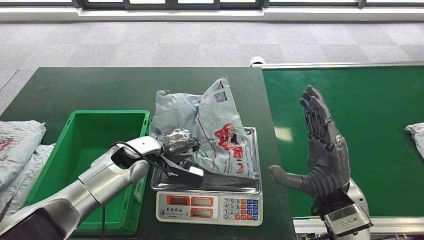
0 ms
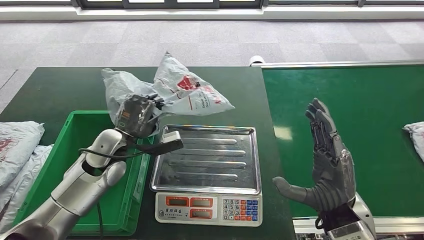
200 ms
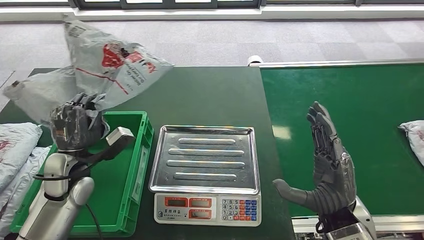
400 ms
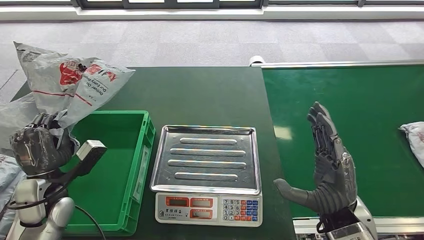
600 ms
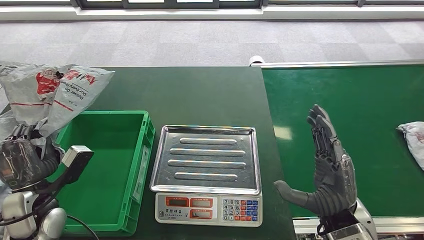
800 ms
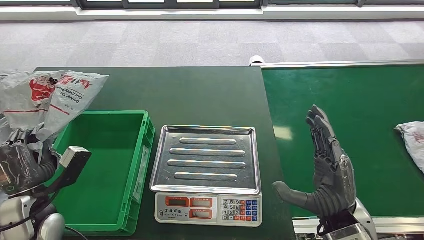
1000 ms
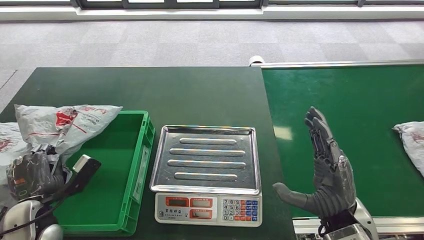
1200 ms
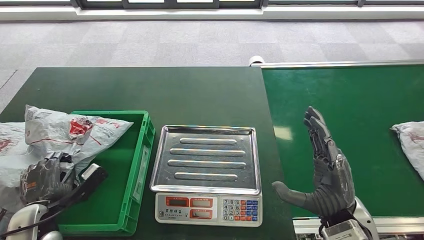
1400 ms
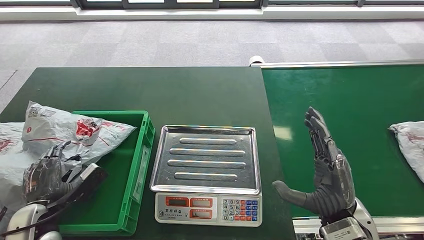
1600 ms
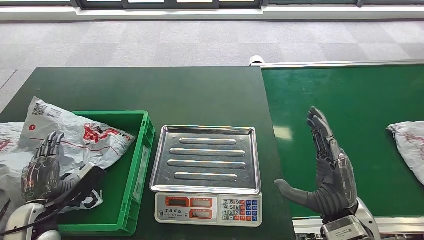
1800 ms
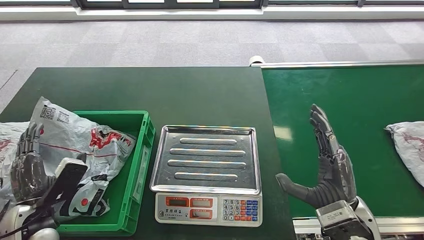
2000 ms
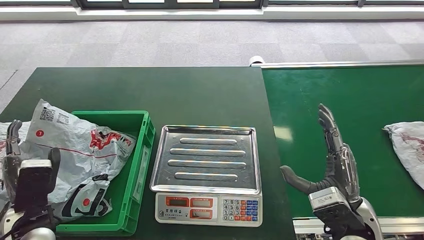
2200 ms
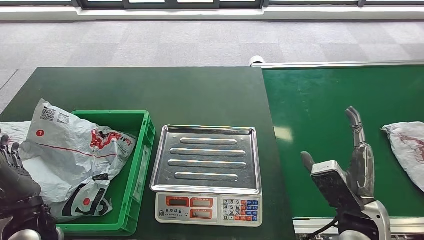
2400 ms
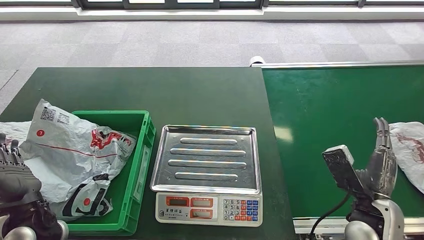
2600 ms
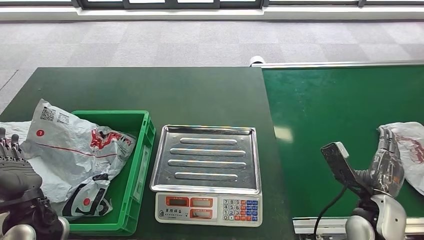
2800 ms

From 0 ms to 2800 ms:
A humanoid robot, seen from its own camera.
Step, from 1000 ms to 2800 ms: Put the parcel inside the courier box.
From 1400 ms to 2800 ms: The right hand moves to the right and downward, approximately 10 cm; the left hand is displaced upward by some 5 cm.

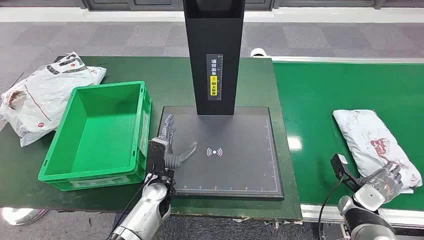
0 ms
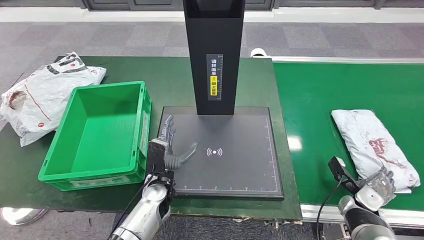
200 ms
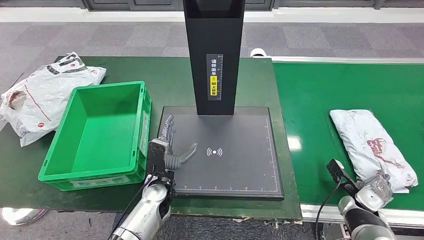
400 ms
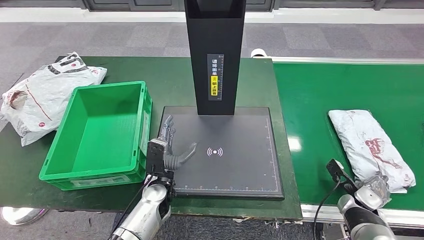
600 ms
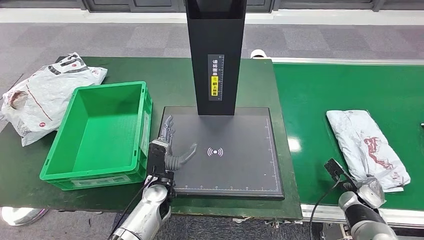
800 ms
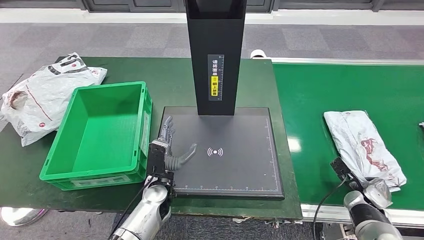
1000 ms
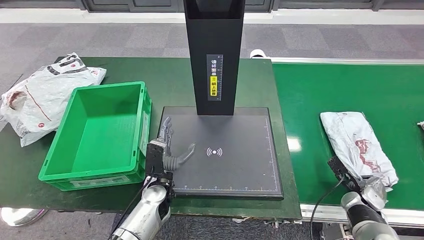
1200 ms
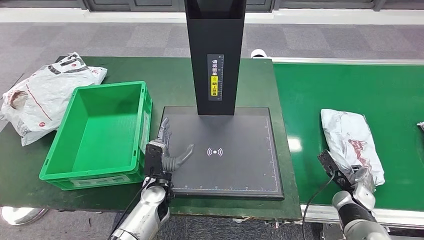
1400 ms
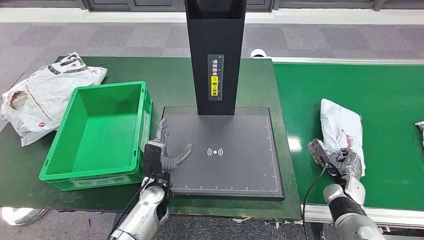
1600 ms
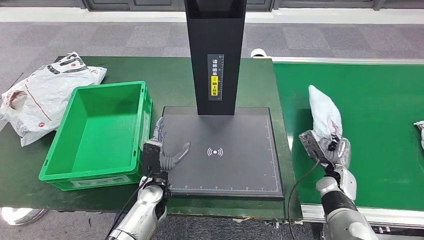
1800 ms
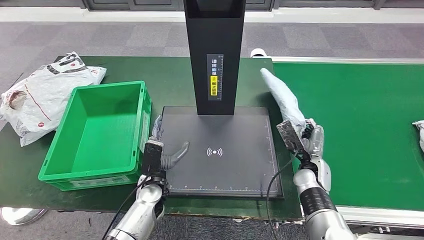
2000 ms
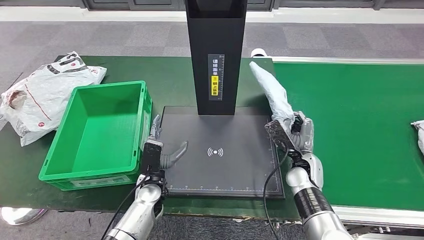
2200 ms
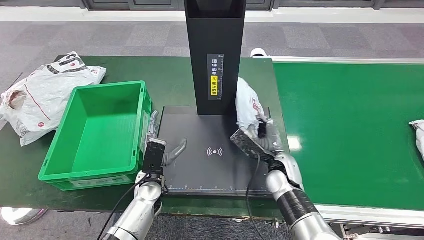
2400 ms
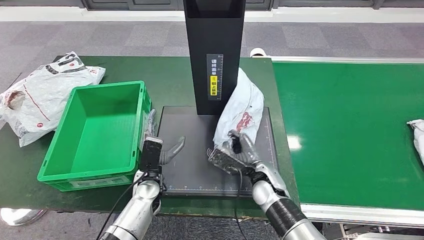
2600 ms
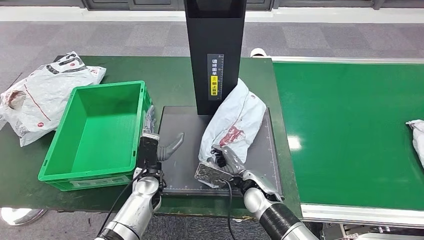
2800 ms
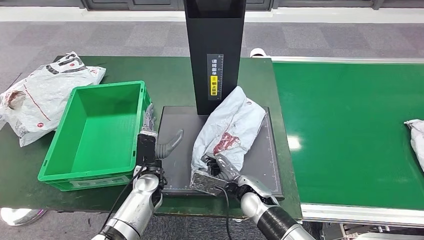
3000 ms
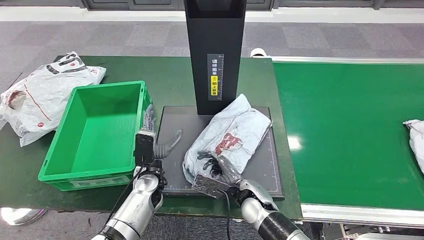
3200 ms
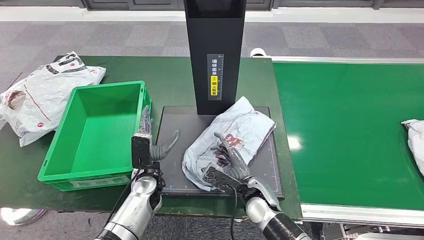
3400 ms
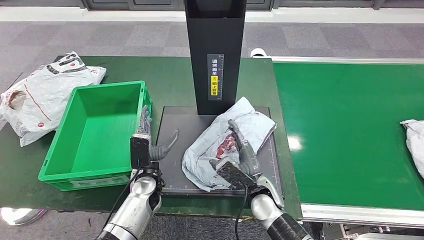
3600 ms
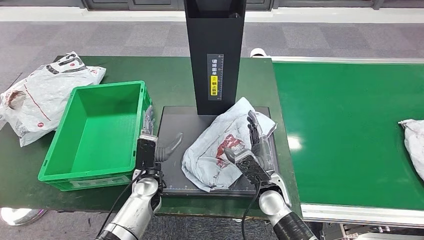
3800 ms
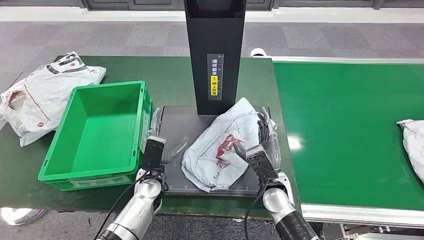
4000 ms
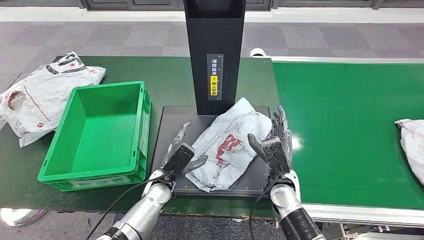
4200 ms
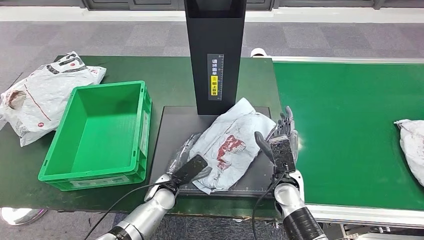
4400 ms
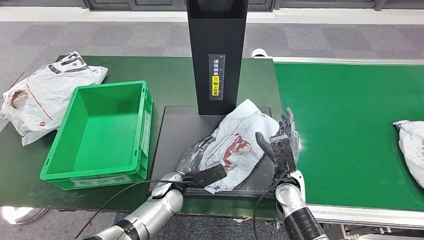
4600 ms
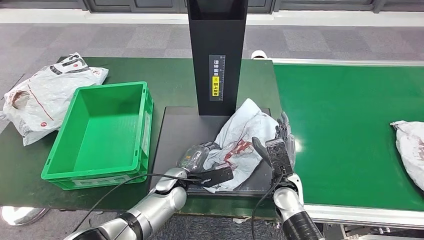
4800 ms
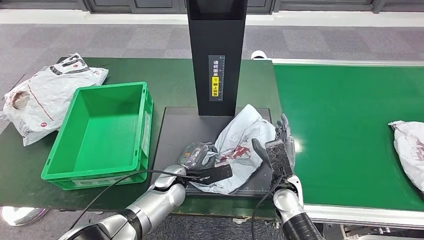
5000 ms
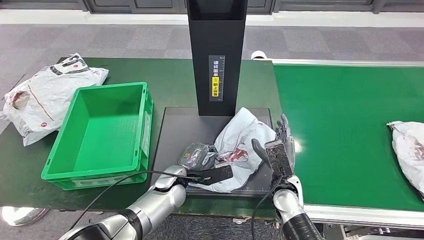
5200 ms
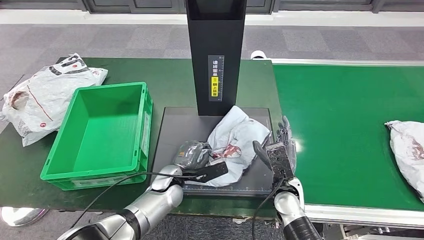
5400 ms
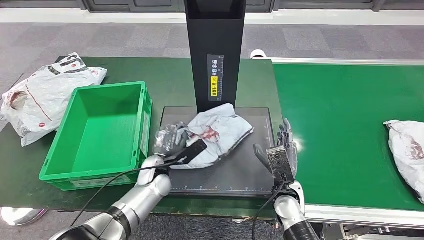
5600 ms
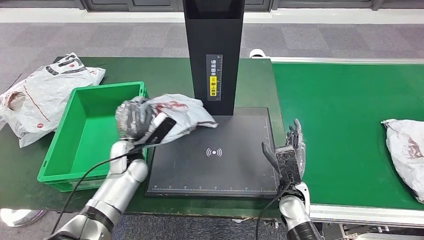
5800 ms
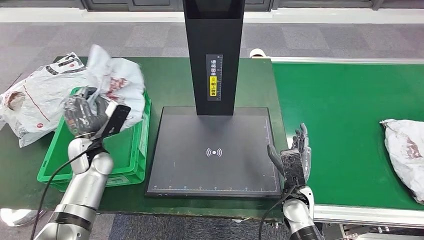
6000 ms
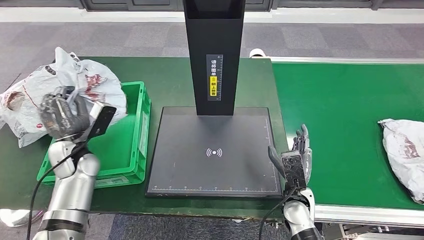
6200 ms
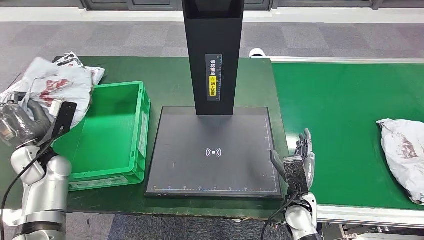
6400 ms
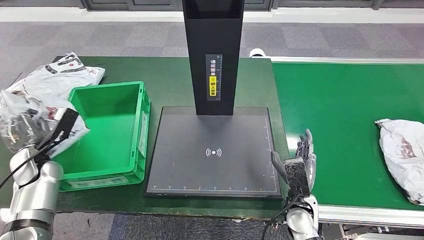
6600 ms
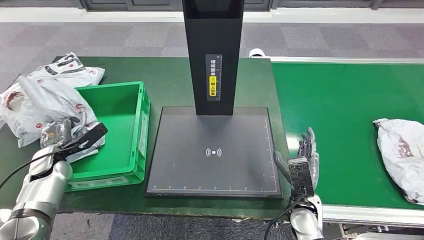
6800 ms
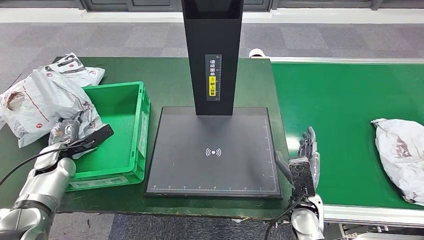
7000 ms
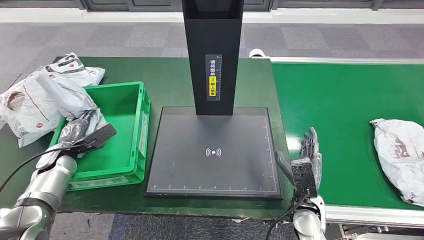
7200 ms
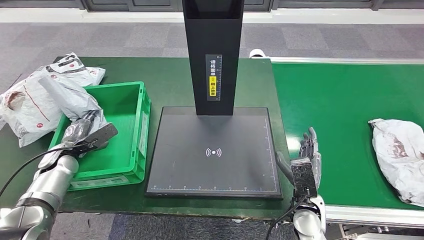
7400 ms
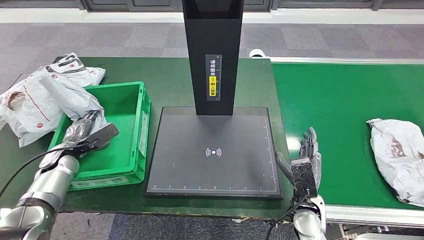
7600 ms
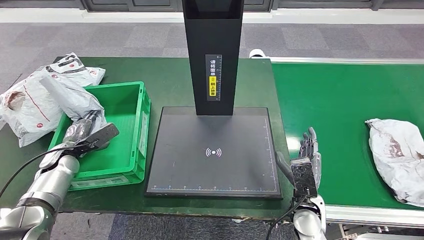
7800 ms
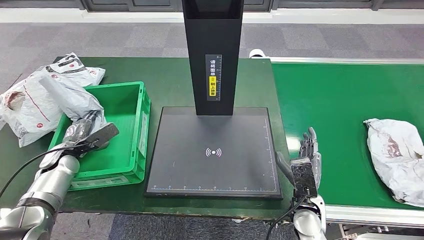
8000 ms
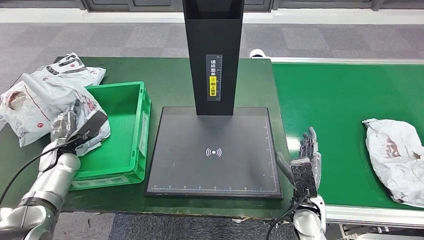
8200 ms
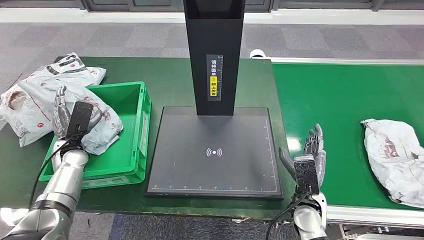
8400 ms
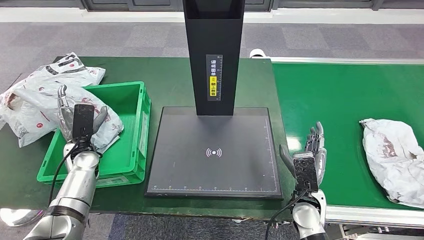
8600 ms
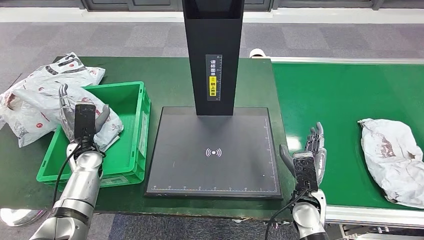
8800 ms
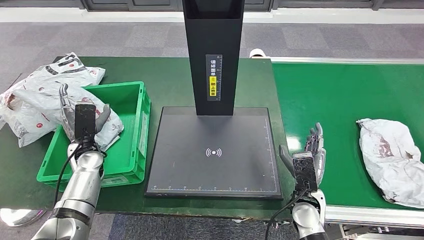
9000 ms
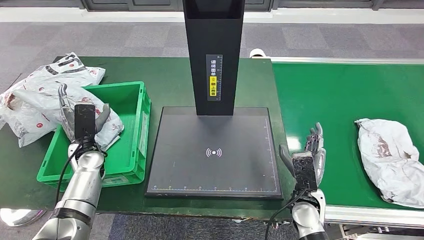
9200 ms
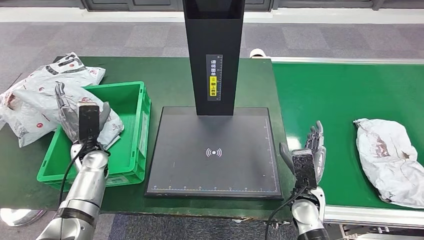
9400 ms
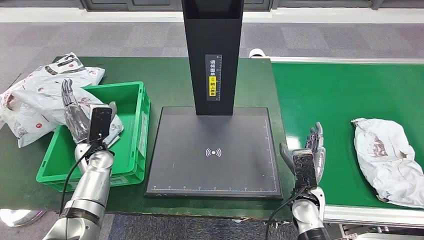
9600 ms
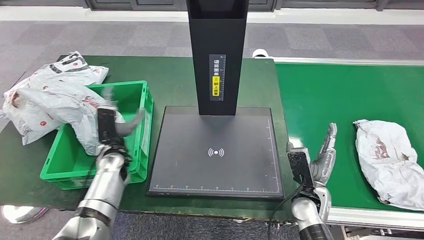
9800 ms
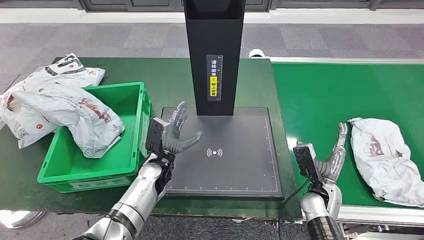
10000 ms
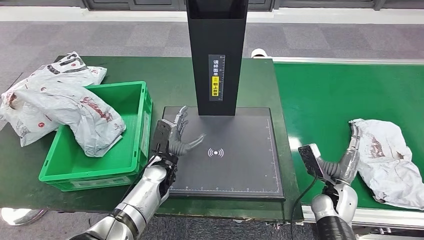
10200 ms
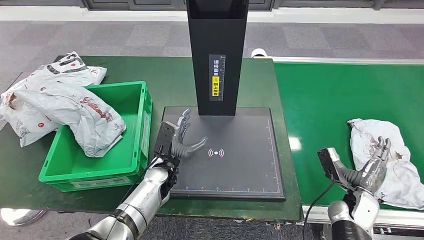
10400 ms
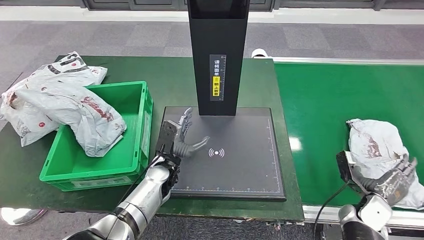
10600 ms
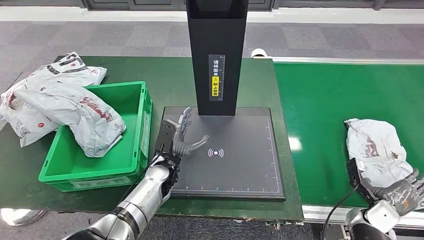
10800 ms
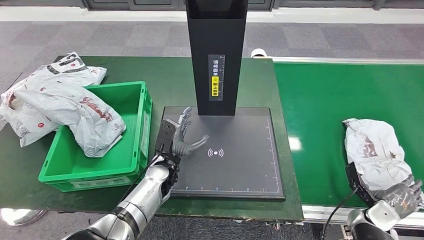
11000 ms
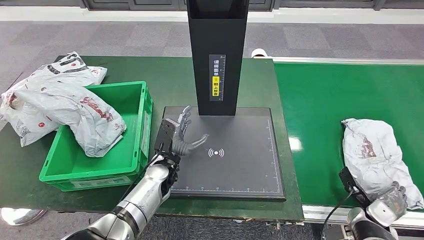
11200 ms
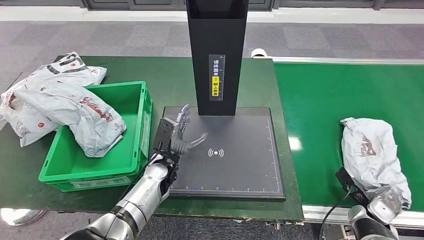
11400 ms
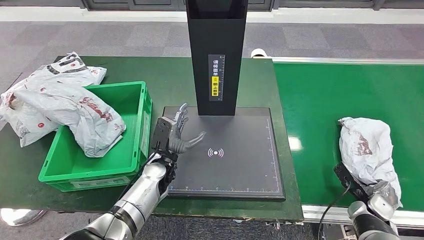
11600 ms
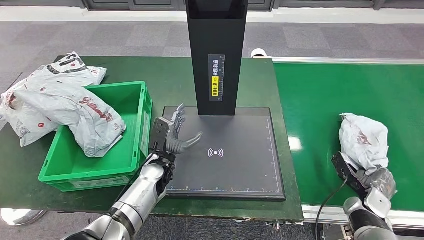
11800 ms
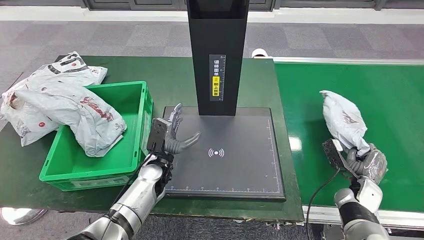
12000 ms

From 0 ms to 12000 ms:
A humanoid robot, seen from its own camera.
Step, from 0 ms to 2200 ms: Take the parcel off the conveyor belt.
Step, from 2400 ms to 4400 ms: Place the parcel onto the inbound machine.
Step, from 4800 ms to 6600 ms: Pick up the parcel from the inbound machine.
Step, from 6800 ms to 9800 ms: Put the parcel inside the courier box.
From 3000 ms to 4400 ms: The right hand travels to the right by some 10 cm; the left hand changes place by approximately 5 cm.
From 7600 ms to 9000 ms: The left hand moves to the right, about 10 cm.

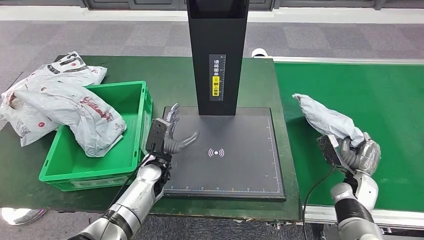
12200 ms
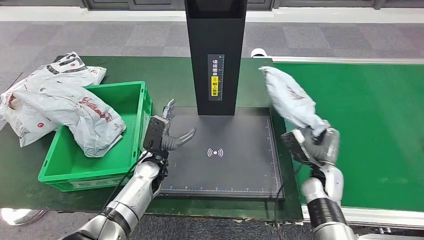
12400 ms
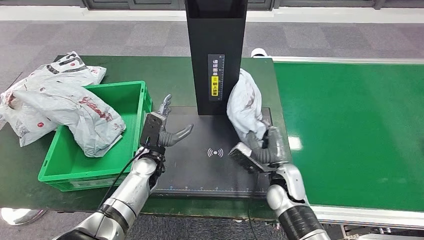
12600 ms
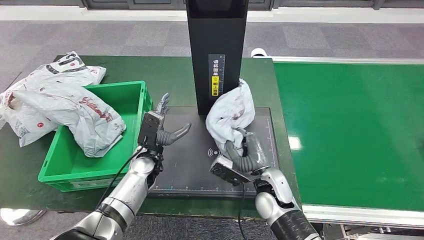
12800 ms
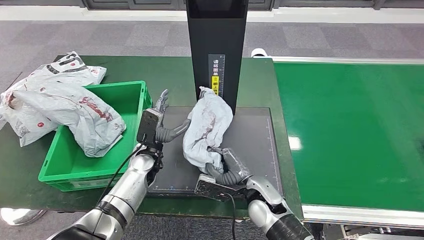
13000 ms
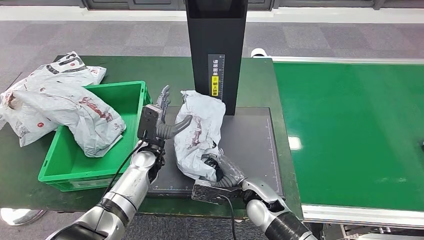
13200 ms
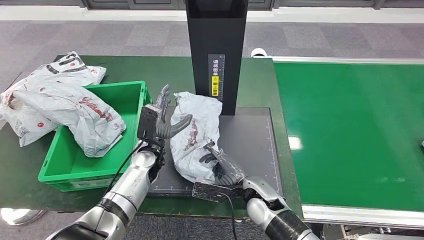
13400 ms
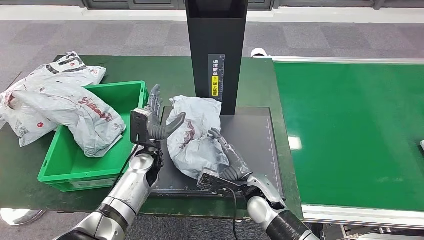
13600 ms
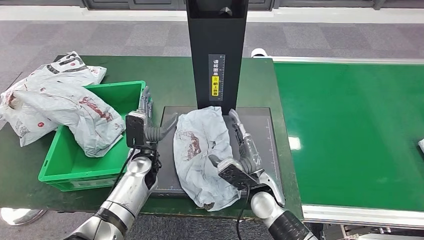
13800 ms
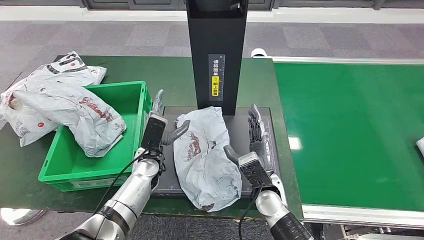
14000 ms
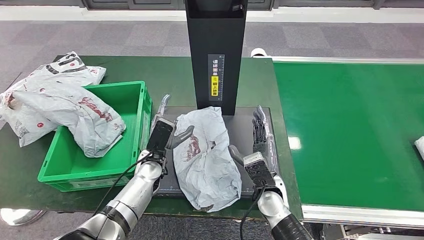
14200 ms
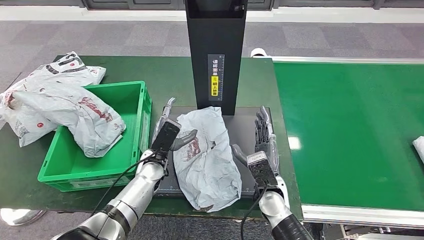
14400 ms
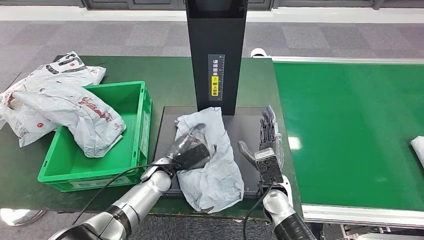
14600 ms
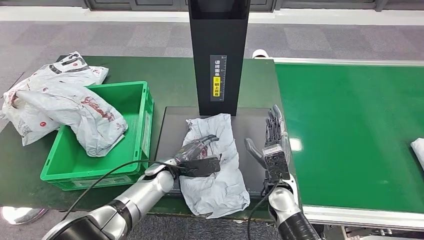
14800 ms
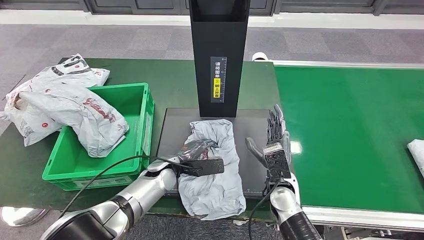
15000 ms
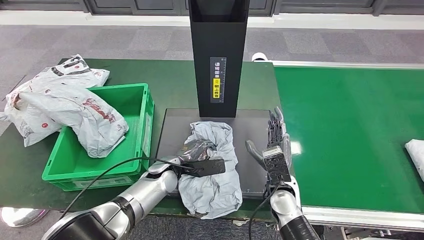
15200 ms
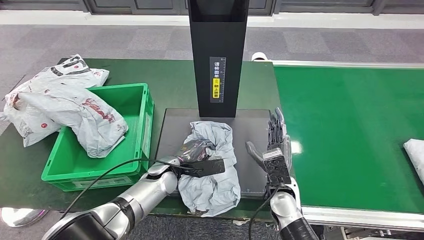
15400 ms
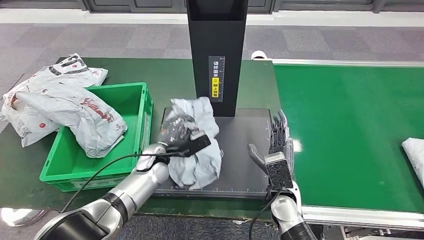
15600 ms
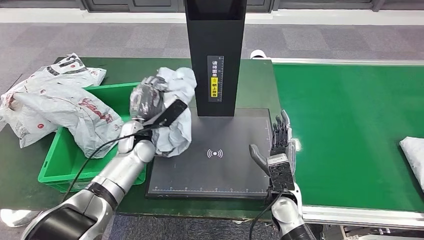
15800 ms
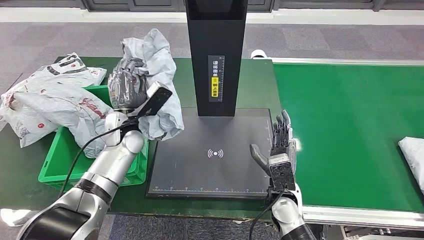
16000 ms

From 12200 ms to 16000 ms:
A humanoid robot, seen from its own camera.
Step, from 13200 ms to 15200 ms: Place the parcel onto the inbound machine.
